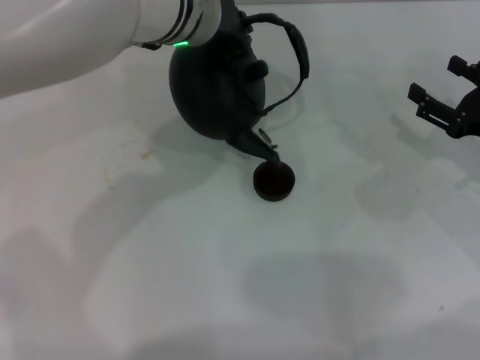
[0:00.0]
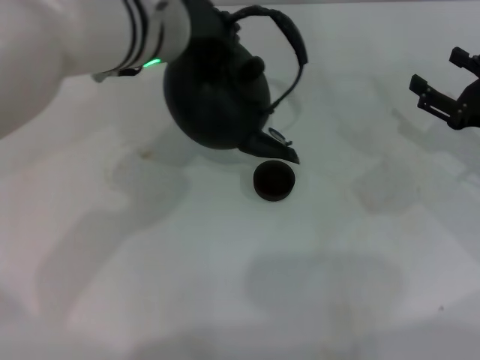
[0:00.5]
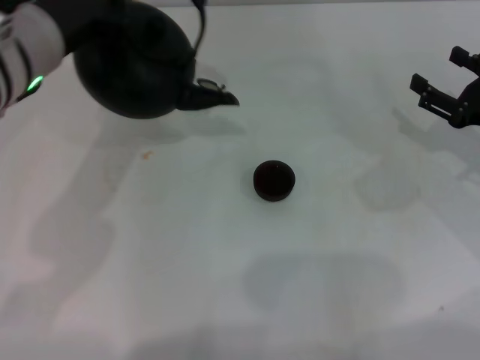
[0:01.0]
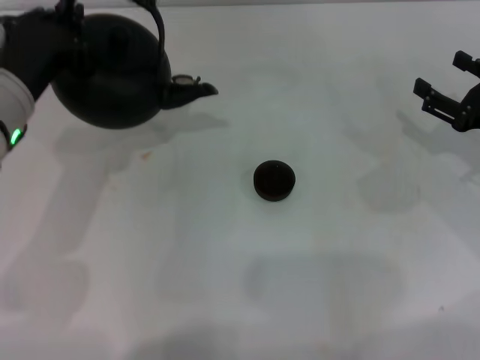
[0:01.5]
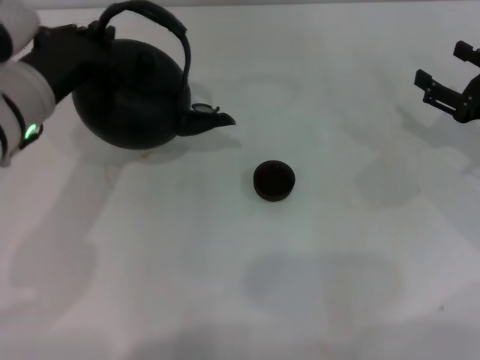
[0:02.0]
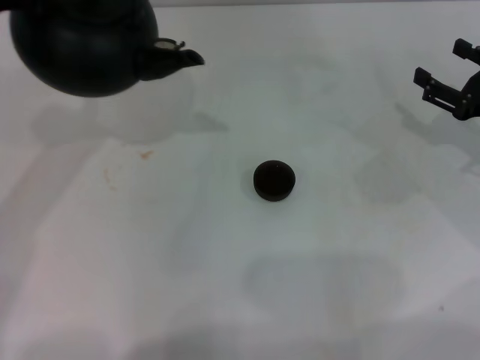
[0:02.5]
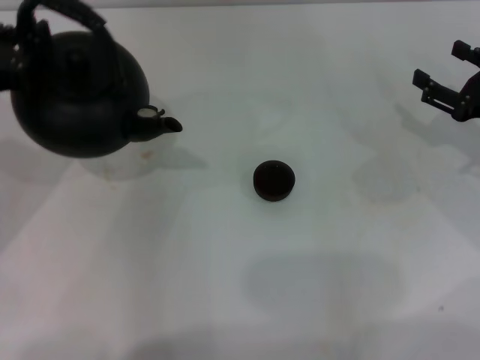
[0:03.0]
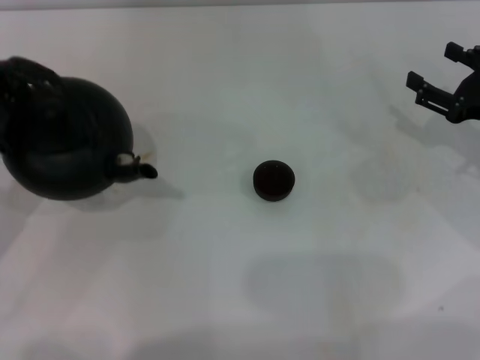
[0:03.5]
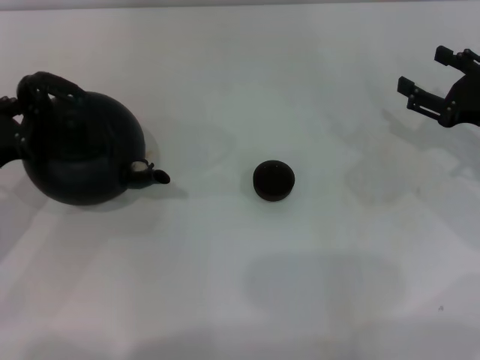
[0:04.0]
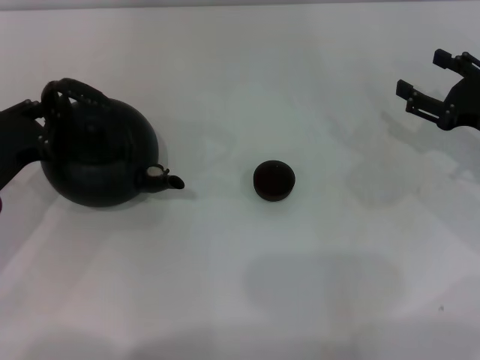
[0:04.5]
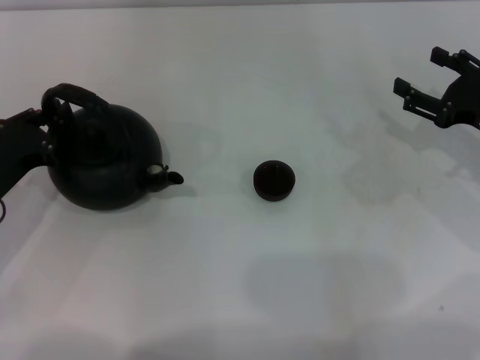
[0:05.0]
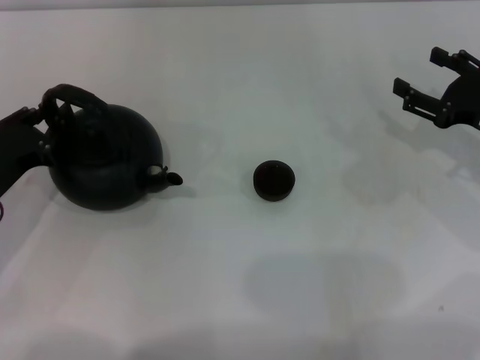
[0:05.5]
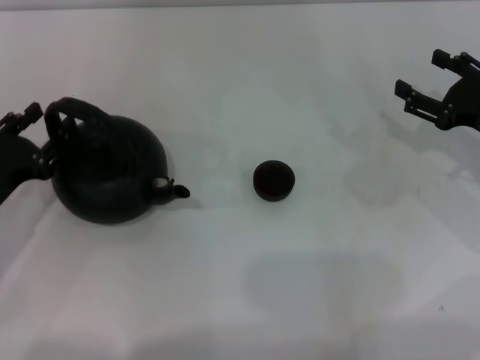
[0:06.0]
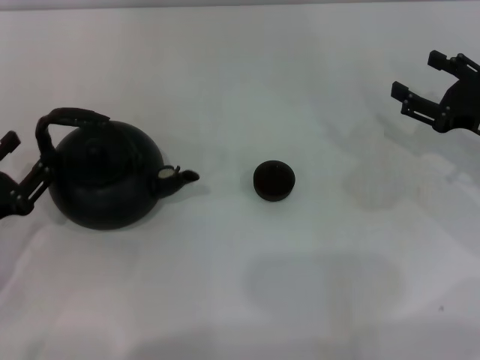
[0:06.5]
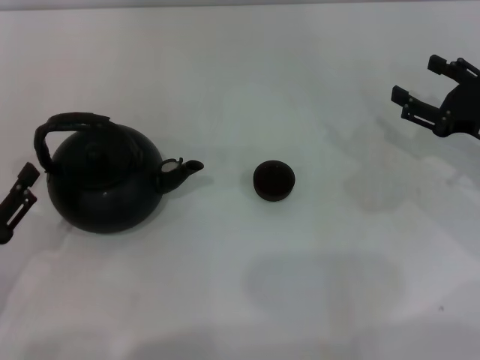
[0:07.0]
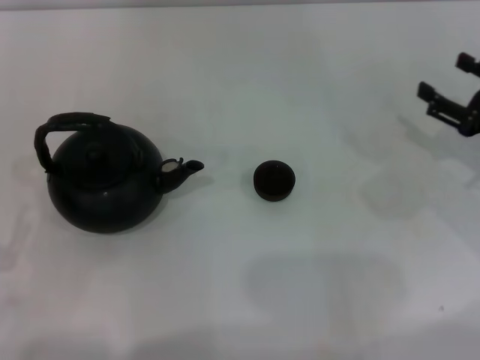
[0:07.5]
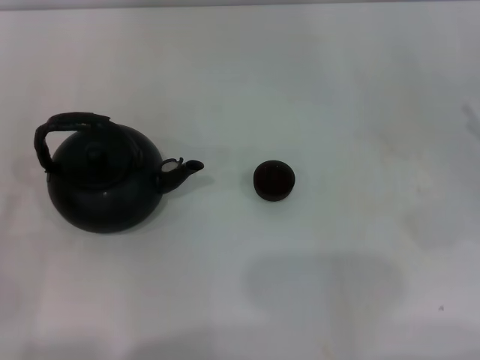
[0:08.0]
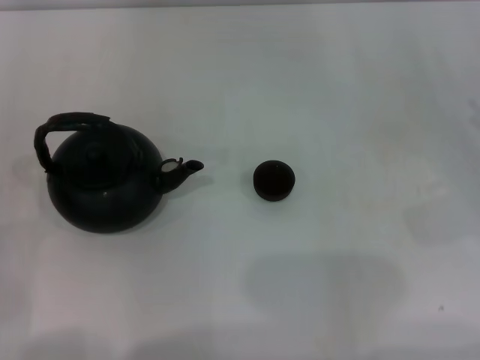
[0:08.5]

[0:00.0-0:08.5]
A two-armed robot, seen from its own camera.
Task of the whole recording: Grasp the handle of the teapot with one hand and pour tea into the teacup.
Step, 0:01.0 to 0:06.5: Put down the teapot with the left gripper.
0:00.0 to 0:02.0: The left gripper travels to the left and backward by about 15 cm.
0:02.0 to 0:04.0: The left gripper is displaced to the left, downward and backward by approximately 15 cm.
0:04.0 to 0:06.5: The left gripper shifts by some 5 cm, and opens up.
0:06.5 to 0:08.5: The left gripper is displaced backward by about 5 cm. The right gripper goes roughly 10 cm to the right and backward.
